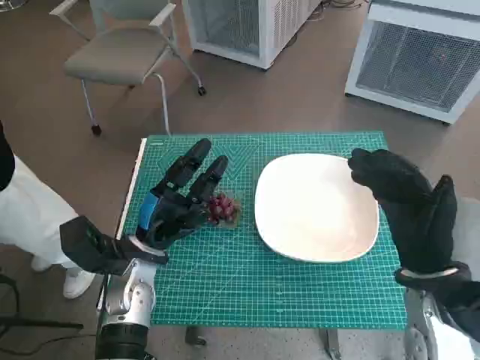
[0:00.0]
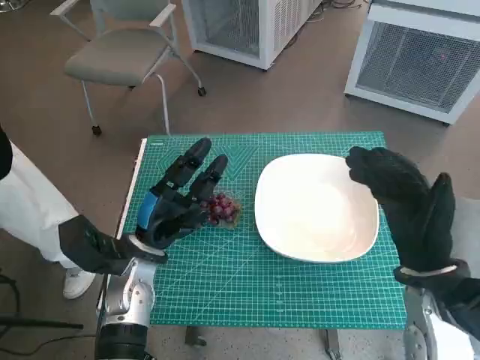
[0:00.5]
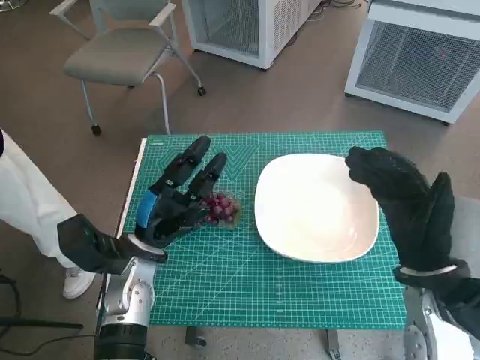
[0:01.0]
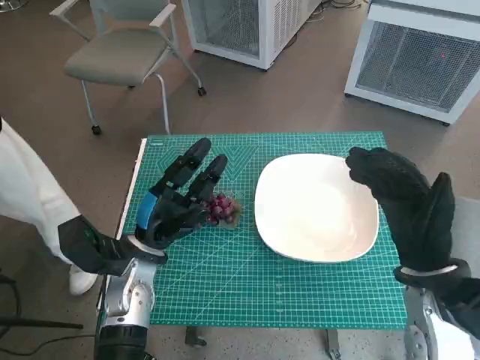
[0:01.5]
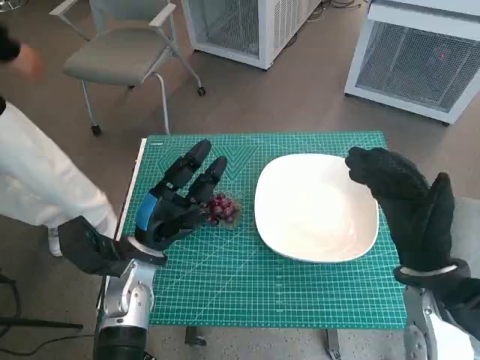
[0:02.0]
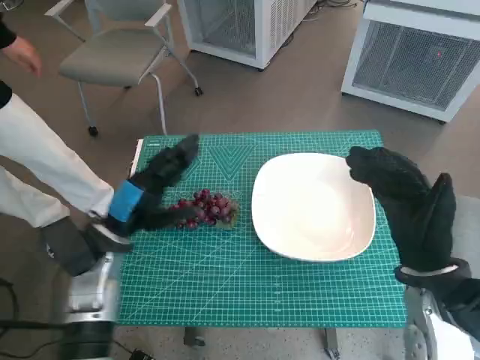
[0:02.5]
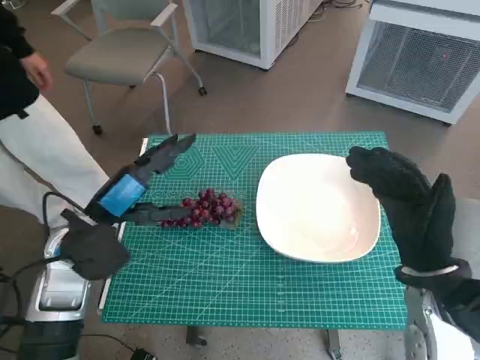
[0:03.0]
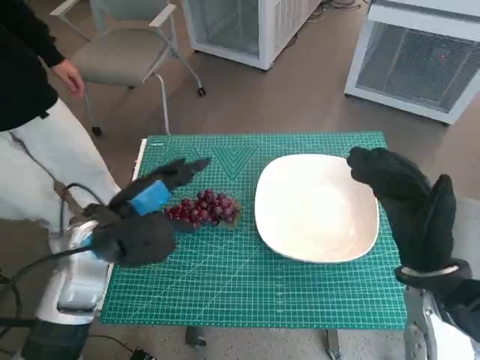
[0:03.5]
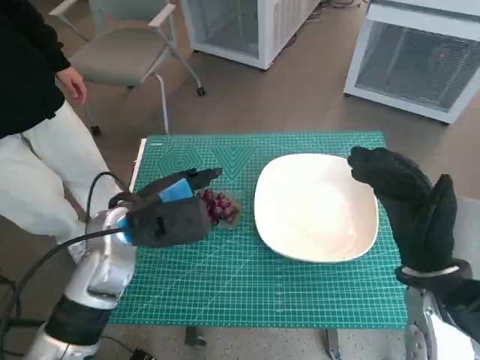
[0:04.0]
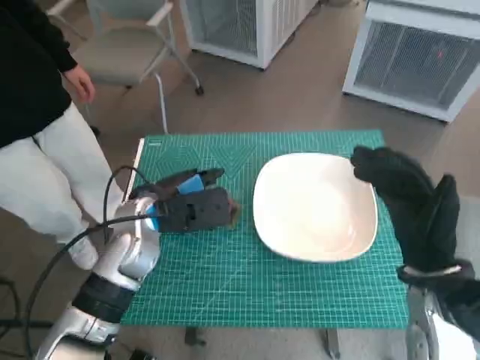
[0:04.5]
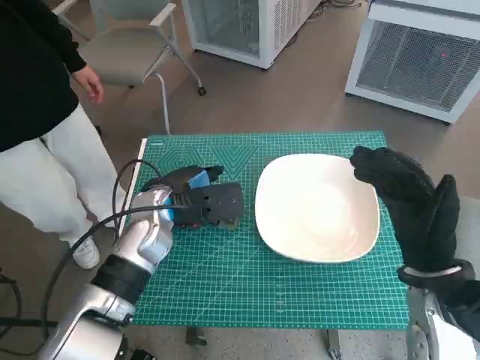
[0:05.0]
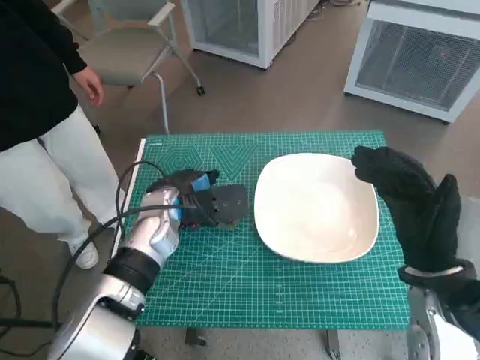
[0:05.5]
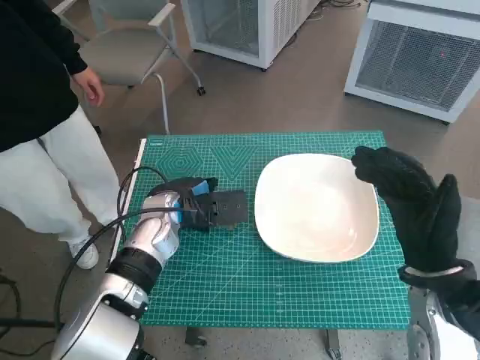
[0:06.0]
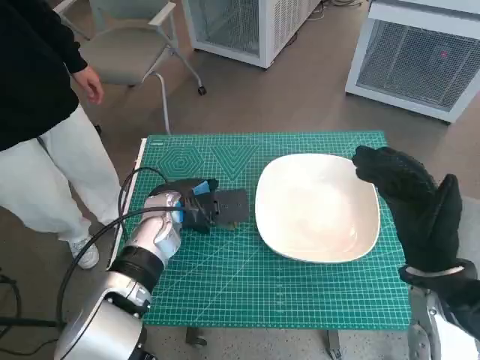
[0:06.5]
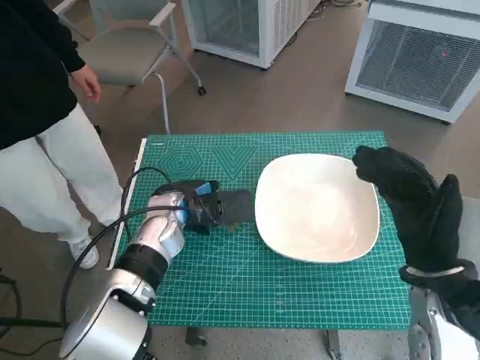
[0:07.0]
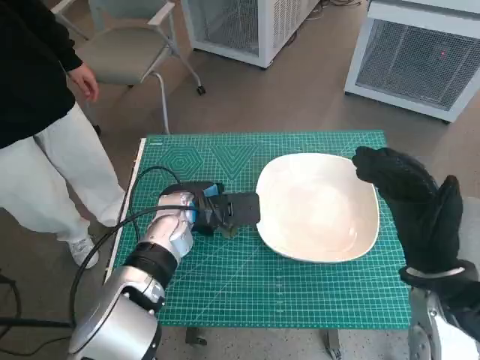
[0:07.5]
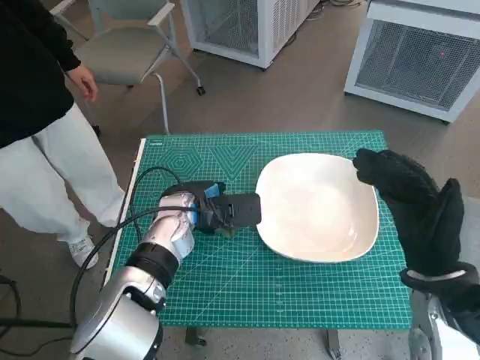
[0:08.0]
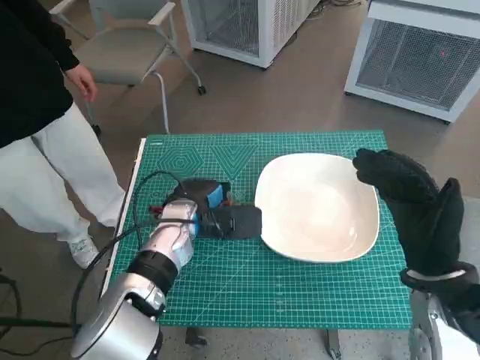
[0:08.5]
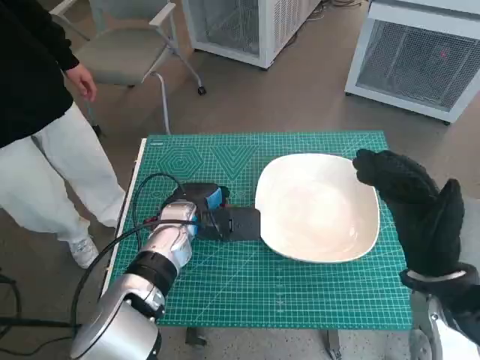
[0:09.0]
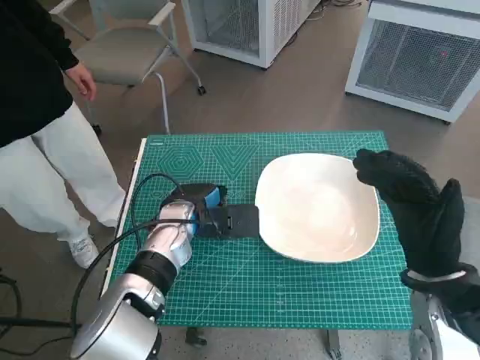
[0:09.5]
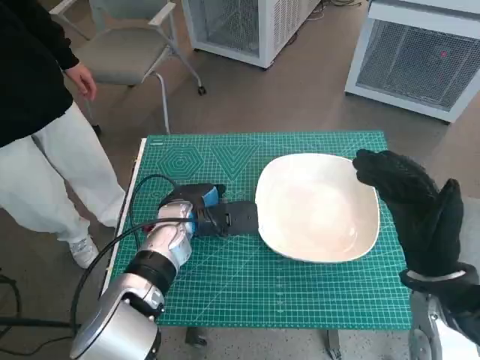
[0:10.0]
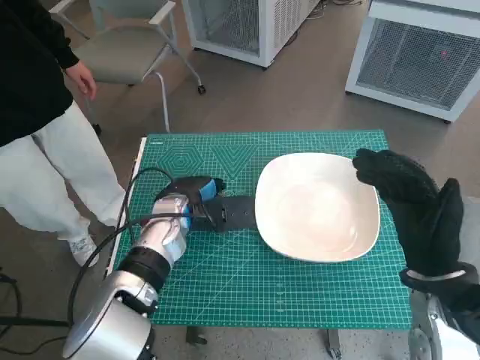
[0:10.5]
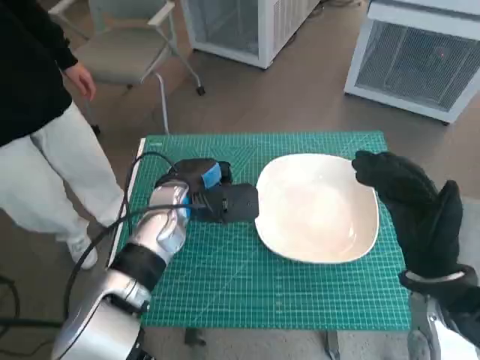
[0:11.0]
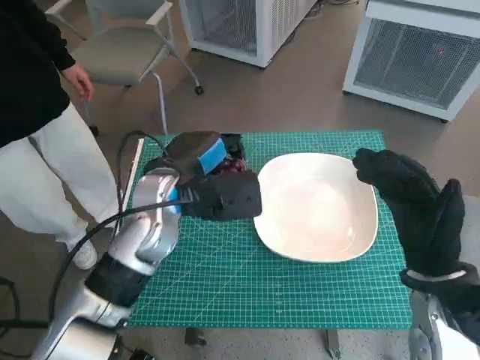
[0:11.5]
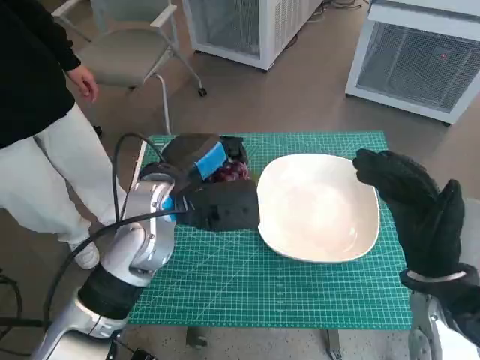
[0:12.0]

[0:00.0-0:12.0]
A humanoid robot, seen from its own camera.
Task of the whole recording: Pick up the grapes and put them on the plate.
Step, 0:00.0 to 0:08.5: Grasp the grapes with left hand.
0:02.0 to 0:04.0: The left hand is displaced upward by roughly 10 cm.
0:04.0 to 0:06.0: The left hand heads forward, covering about 5 cm.
0:06.0 to 0:10.0: The hands stay close to where they were, moving slightly.
0:10.0 to 0:12.0: The left hand travels upward by approximately 10 cm.

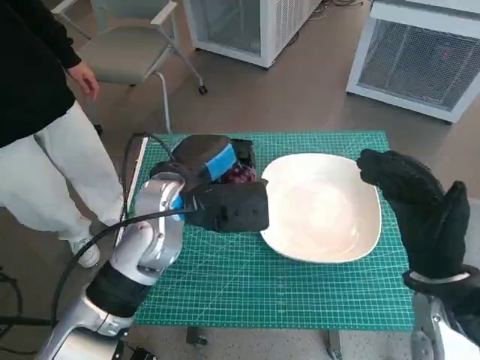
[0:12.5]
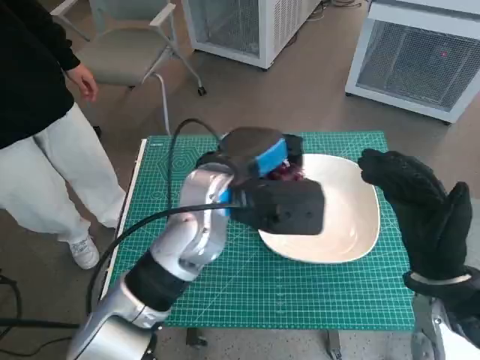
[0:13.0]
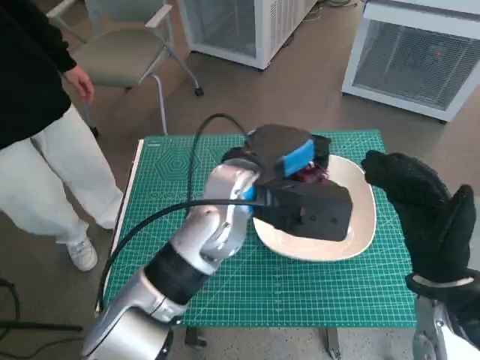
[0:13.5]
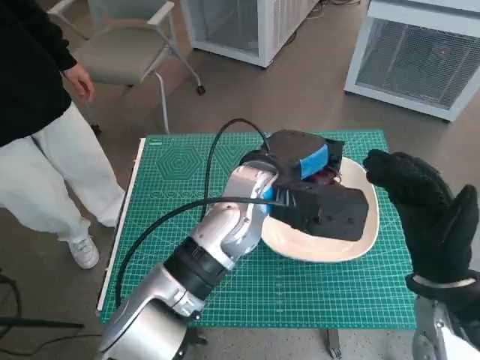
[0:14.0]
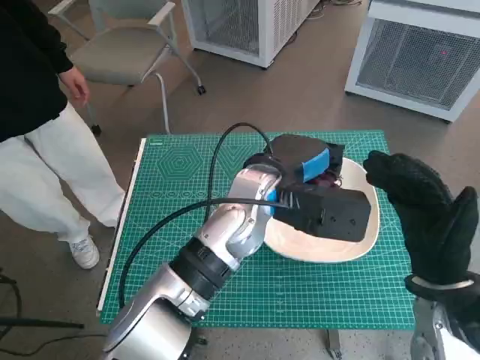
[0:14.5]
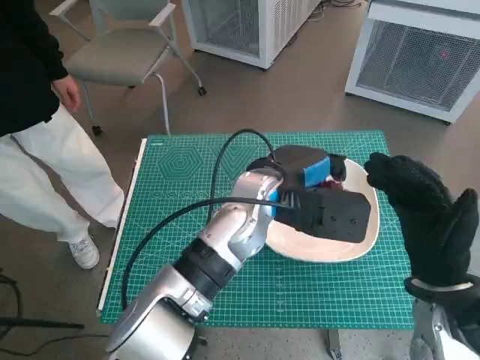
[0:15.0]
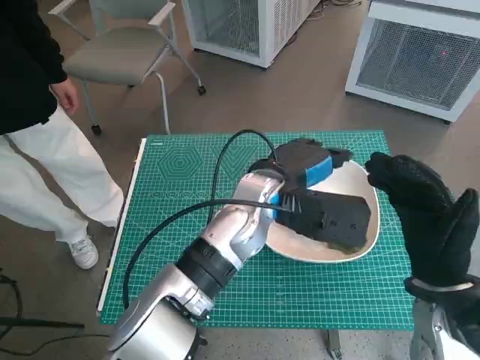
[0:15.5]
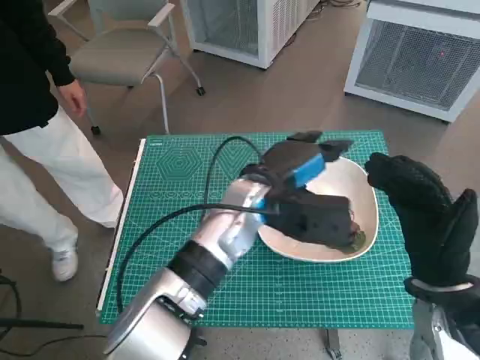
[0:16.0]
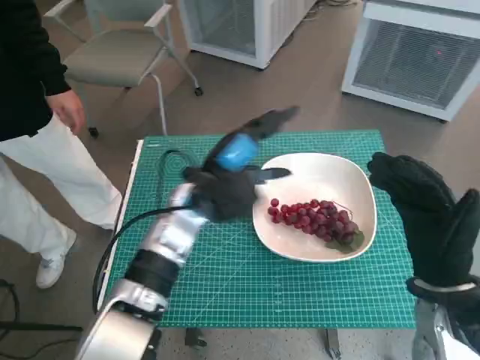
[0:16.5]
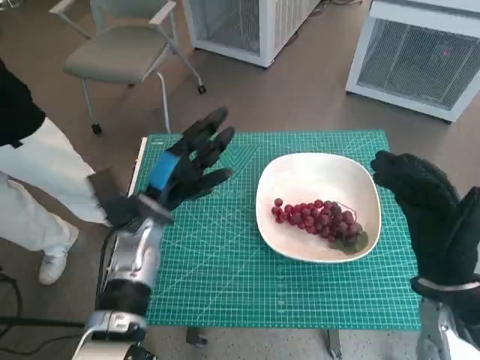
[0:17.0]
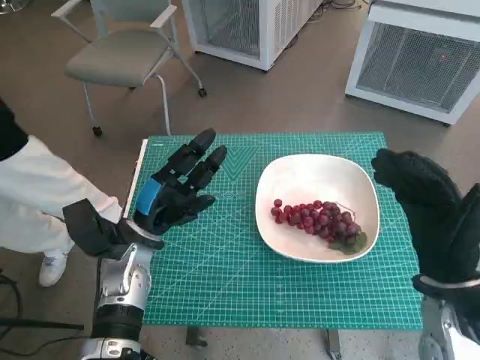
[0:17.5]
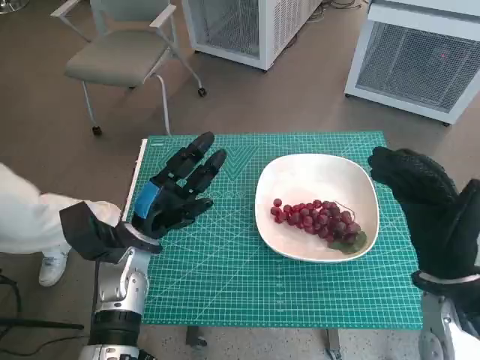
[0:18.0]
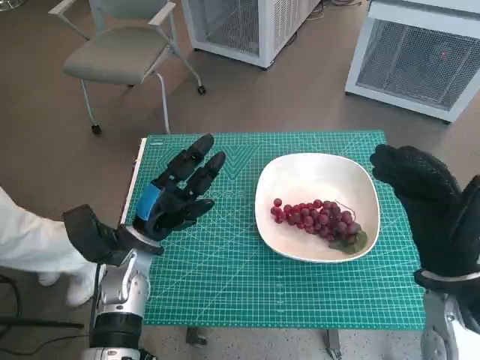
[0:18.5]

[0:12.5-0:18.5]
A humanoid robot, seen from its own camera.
Task of the whole recording: Pick up the grapes and put them on the plate.
Step, 0:12.5 to 0:15.5: Place the grapes in the plate with left hand.
0:12.5 to 0:14.5: The left hand heads to the right, covering approximately 10 cm.
0:14.5 to 0:16.5: The left hand shifts approximately 10 cm to the left.
0:16.5 to 0:18.5: The left hand travels to the left and downward by roughly 15 cm.

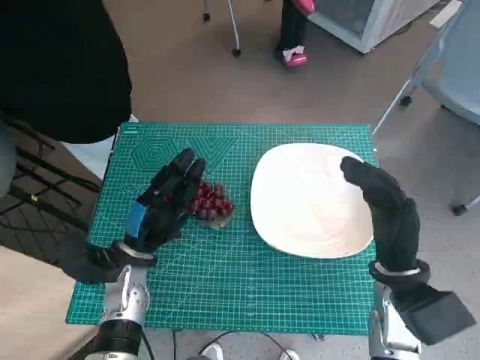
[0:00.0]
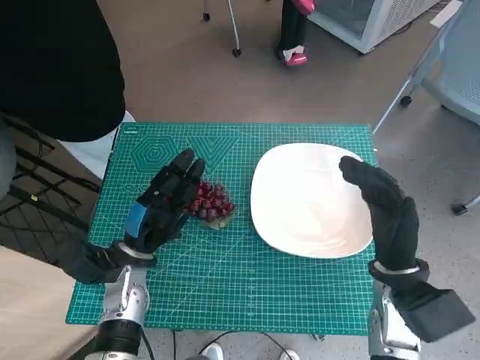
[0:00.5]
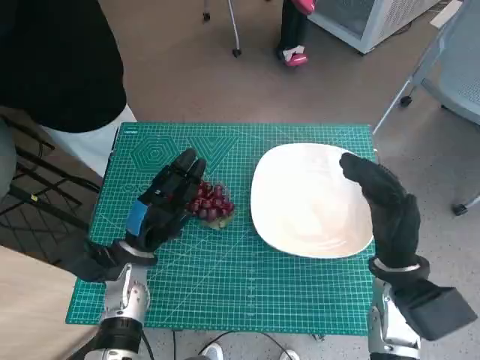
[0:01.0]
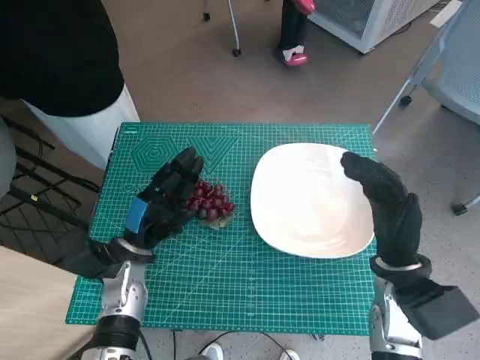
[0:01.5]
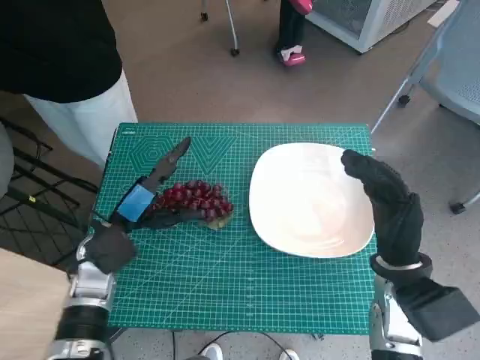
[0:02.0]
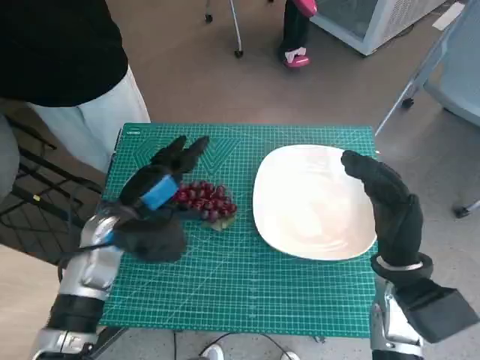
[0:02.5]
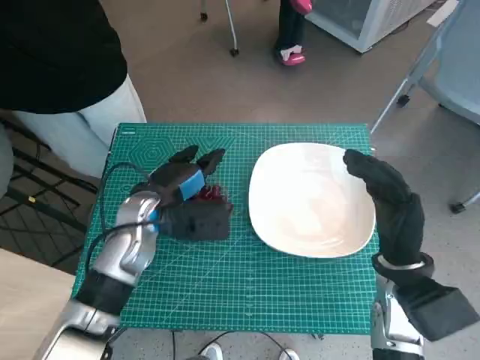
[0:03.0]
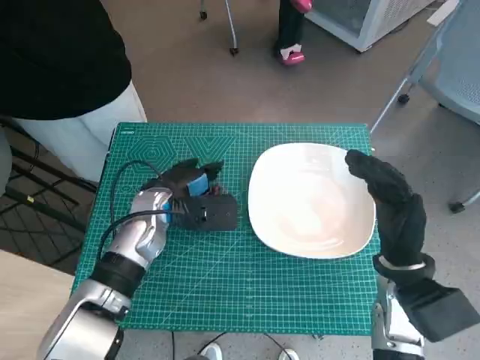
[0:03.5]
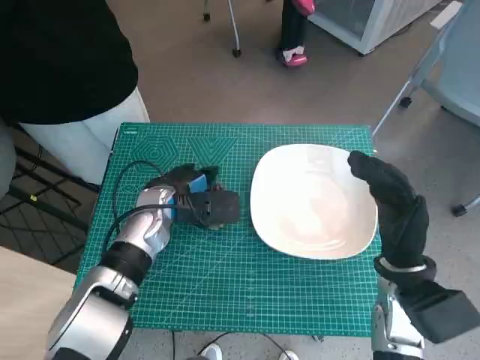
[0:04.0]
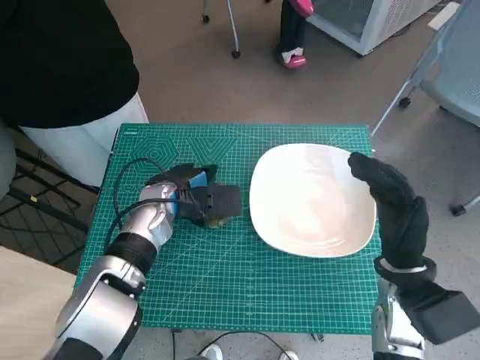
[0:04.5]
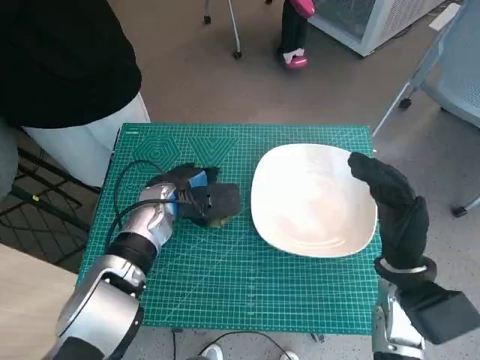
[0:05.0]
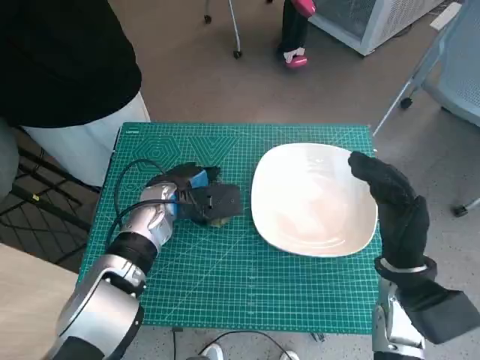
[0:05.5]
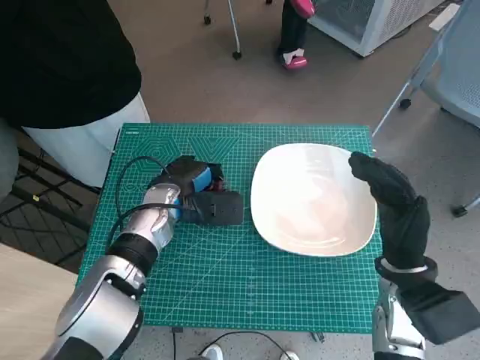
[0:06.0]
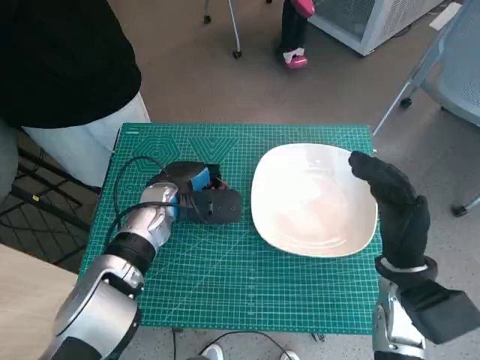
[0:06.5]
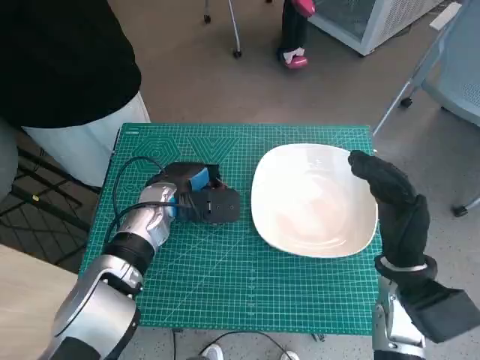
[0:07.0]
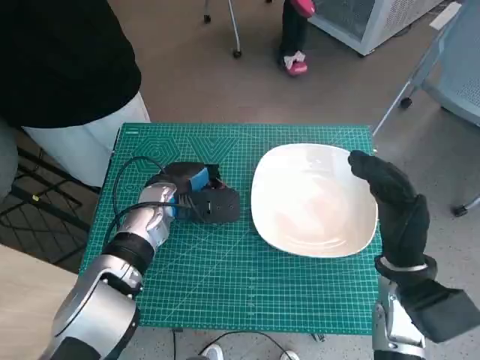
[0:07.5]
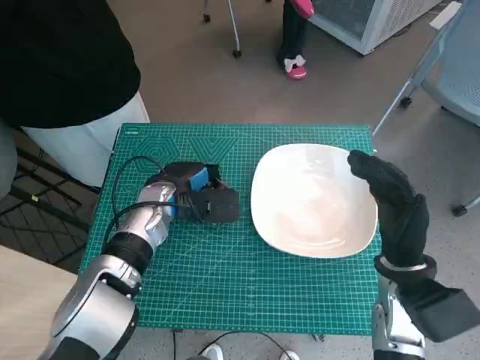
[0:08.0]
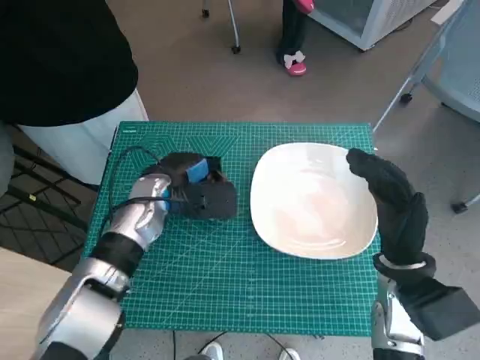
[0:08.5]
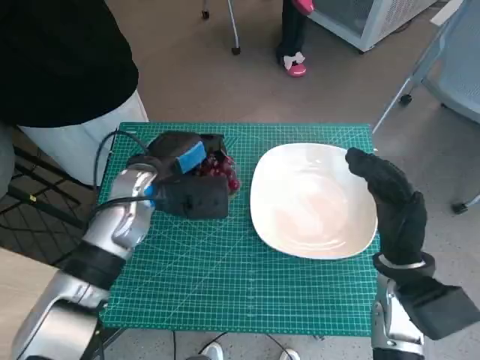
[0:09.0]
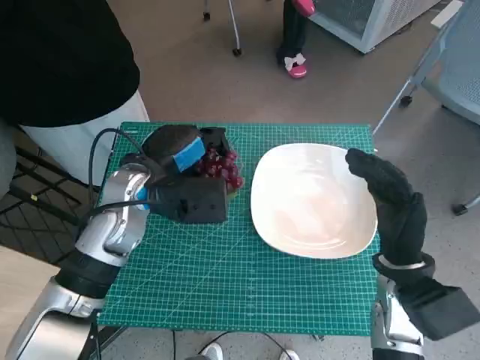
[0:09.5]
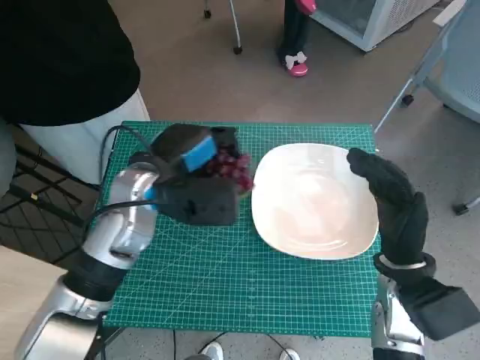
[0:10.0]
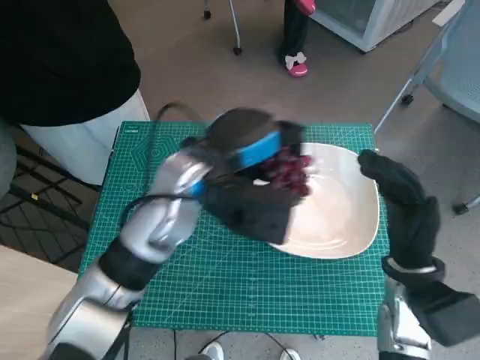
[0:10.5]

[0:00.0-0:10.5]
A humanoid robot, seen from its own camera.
Task of the whole recording: Pick up the grapes and put them on the plate.
Step, 0:00.0 to 0:06.5: Grasp the grapes with left hand.
0:02.0 to 0:04.0: The left hand heads to the right and forward, covering about 10 cm.
0:04.0 to 0:08.5: The hands make only small movements.
0:08.5 to 0:10.5: The left hand shifts roughly 15 cm upward and to the right.
